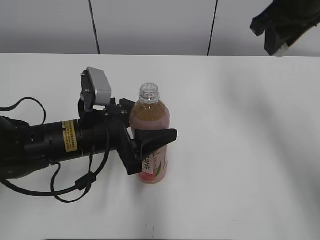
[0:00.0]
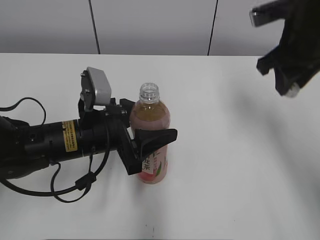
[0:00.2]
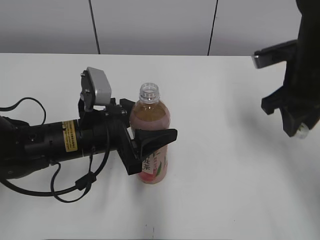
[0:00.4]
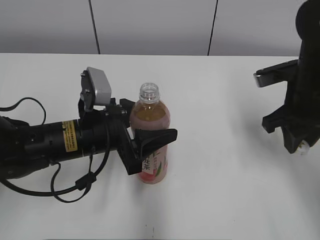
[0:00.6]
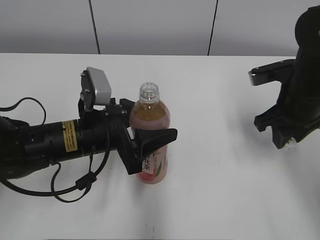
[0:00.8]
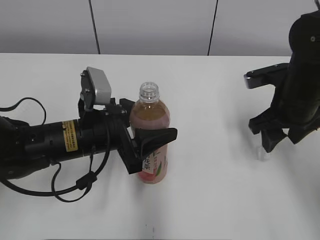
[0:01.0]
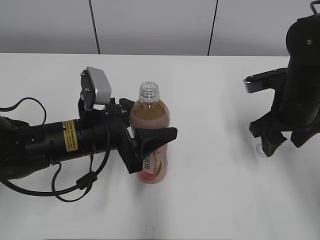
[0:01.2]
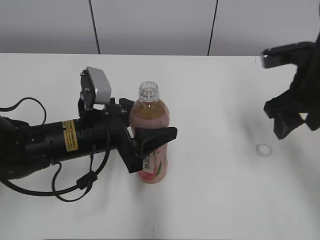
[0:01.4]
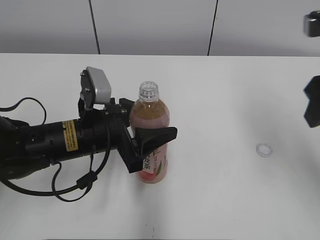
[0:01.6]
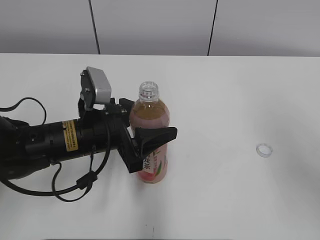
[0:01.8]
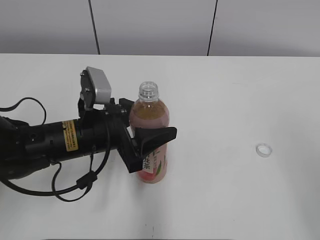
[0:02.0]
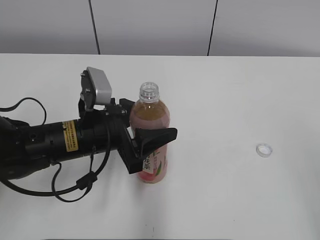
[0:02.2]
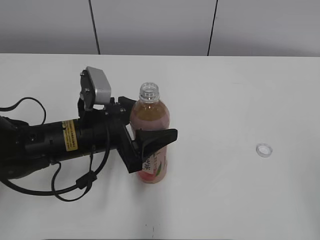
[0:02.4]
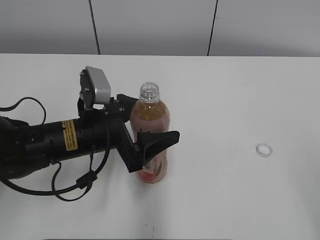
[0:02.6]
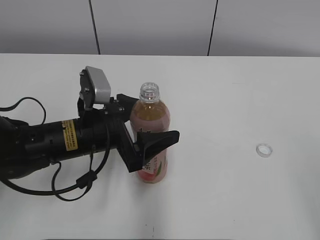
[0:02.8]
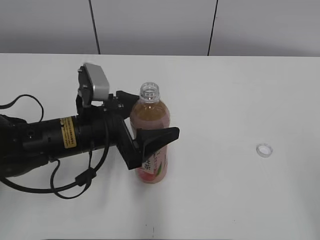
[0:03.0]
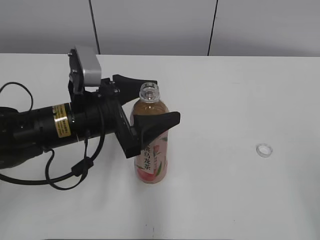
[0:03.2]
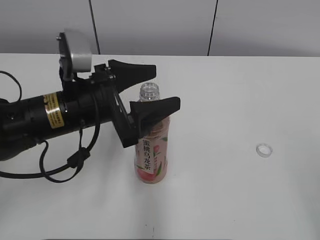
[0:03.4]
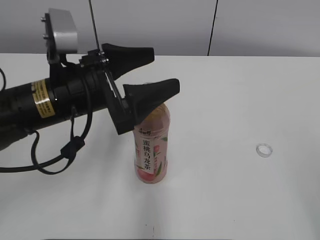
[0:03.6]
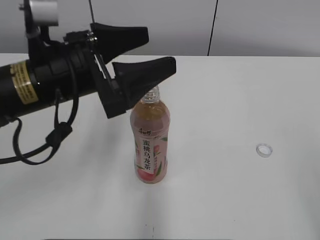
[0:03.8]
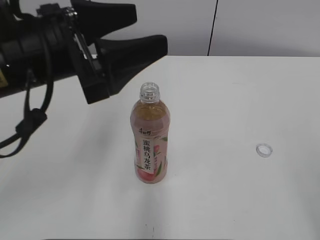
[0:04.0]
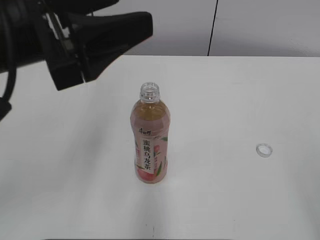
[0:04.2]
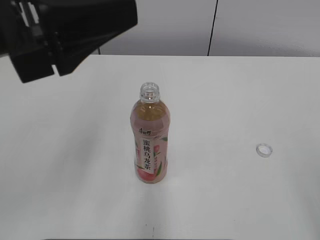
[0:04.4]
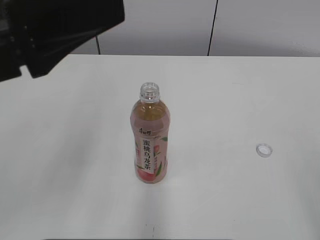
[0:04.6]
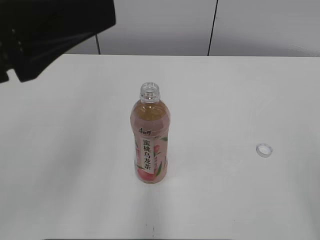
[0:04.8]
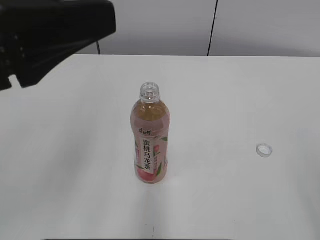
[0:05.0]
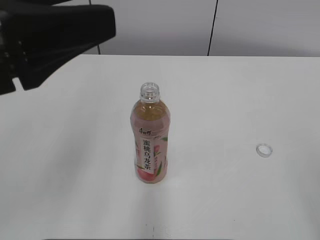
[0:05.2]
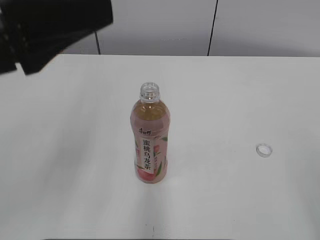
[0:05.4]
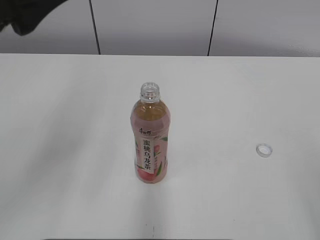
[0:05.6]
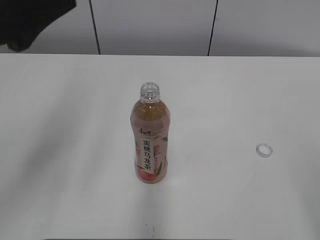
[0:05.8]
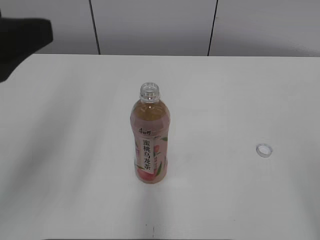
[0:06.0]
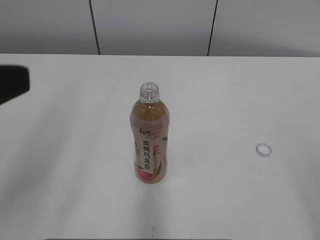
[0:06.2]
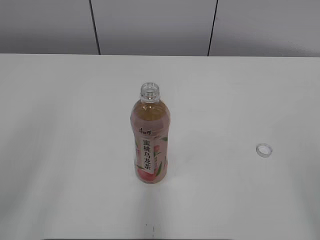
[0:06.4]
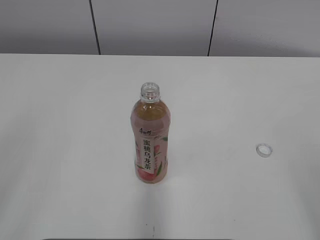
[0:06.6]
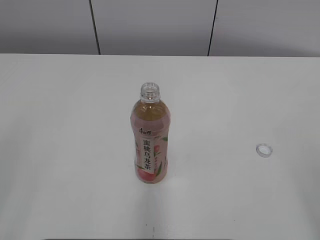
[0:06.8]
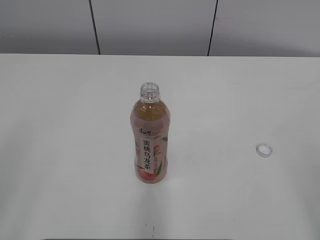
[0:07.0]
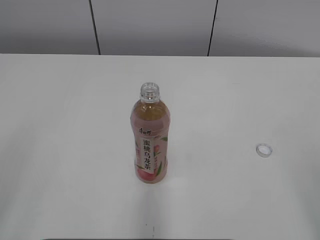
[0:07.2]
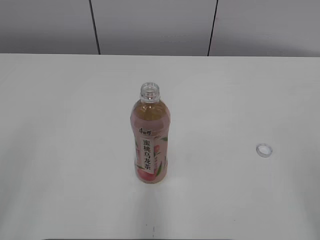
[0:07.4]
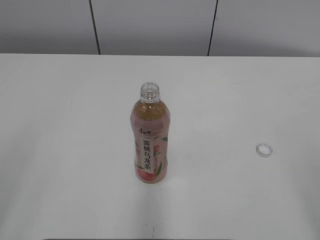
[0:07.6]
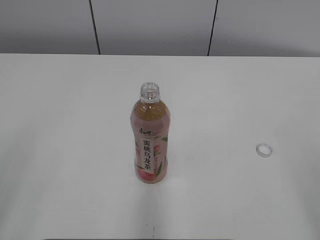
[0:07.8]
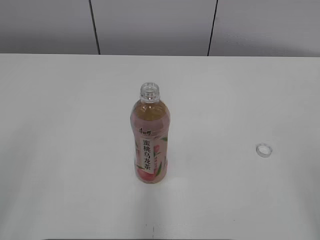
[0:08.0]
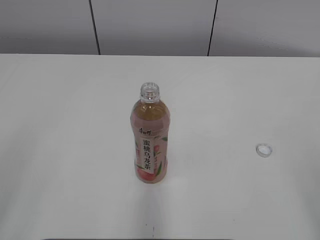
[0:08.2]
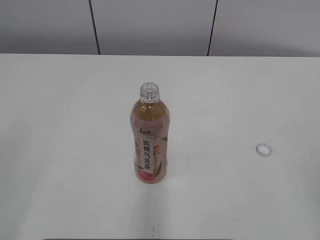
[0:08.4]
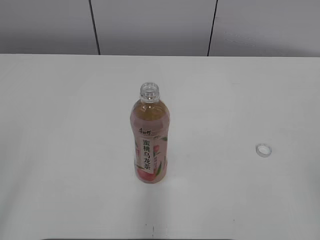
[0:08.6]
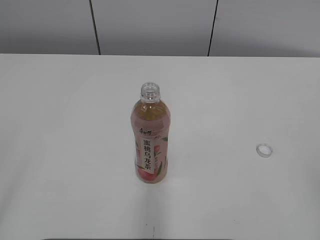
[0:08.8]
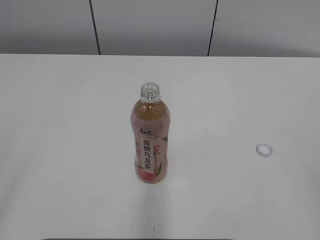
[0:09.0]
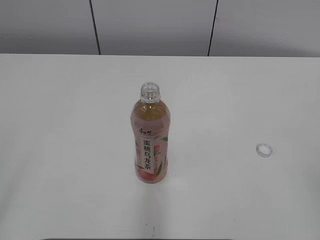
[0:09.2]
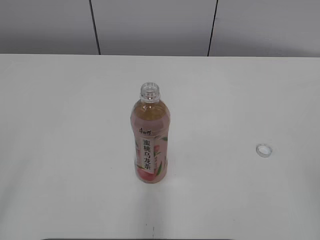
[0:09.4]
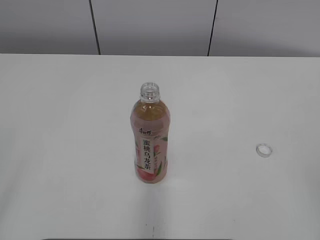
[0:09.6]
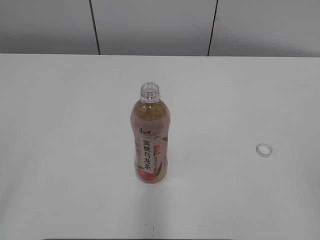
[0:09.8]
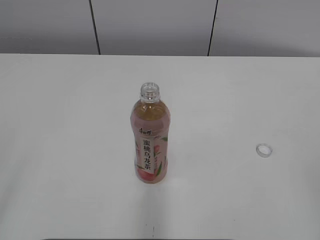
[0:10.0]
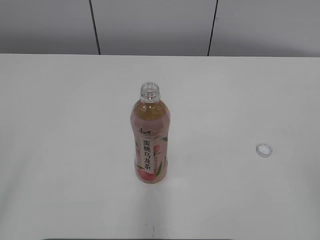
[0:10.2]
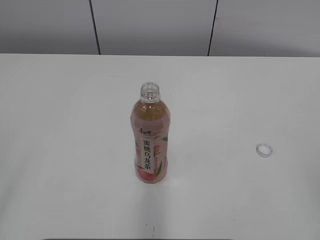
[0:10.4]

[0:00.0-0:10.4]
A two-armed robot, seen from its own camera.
Step, 0:00.0 to 0:01.2: Place the bottle cap on the right.
0:00.0 to 0:01.4: The right gripper travels downward and backward by some 15 cm, and opens.
0:01.4 to 0:03.0: The right gripper heads backward, covering roughly 25 cm, while the left gripper opens up.
0:03.0 to 0:04.4: The left gripper is displaced upward by some 20 cm.
0:04.4 to 0:06.0: The left gripper is displaced to the left by about 5 cm.
0:06.0 to 0:07.4: The left gripper travels backward and to the left by roughly 15 cm.
0:09.0 to 0:10.4: The two grippers keep their place.
